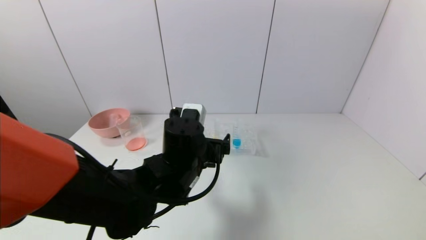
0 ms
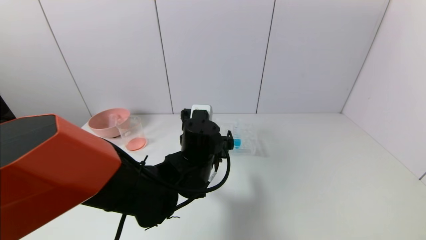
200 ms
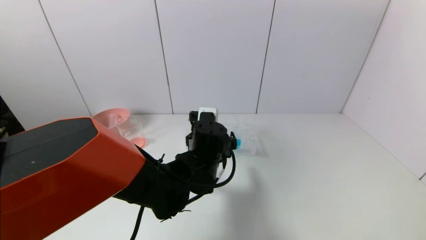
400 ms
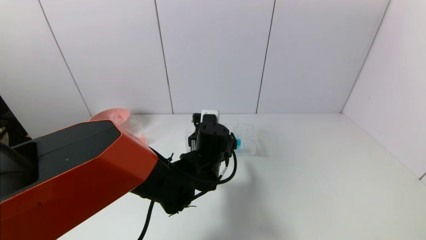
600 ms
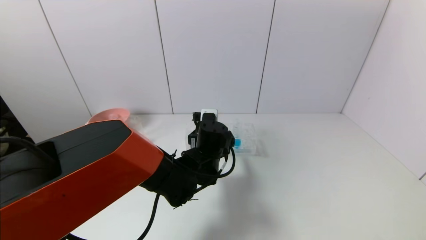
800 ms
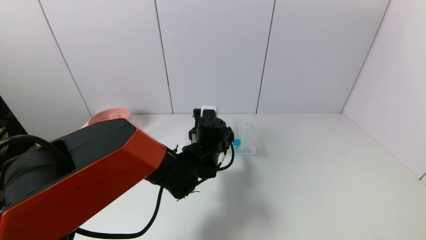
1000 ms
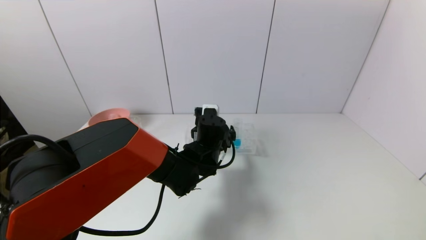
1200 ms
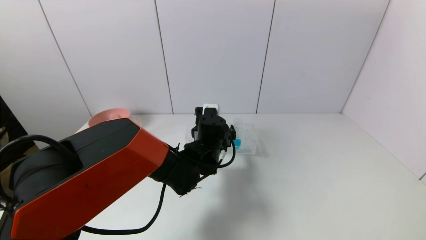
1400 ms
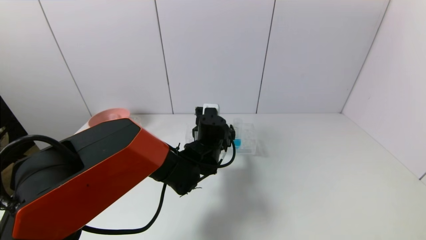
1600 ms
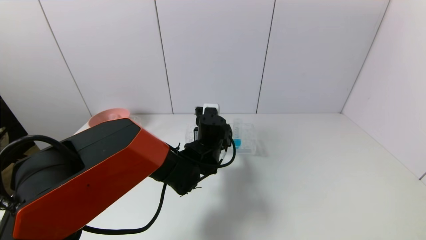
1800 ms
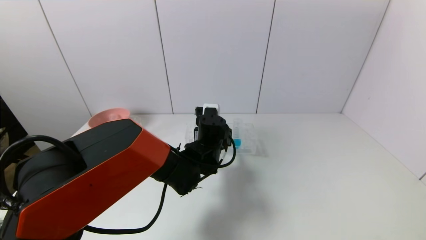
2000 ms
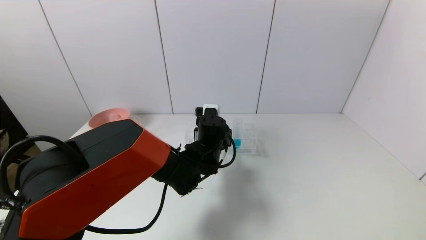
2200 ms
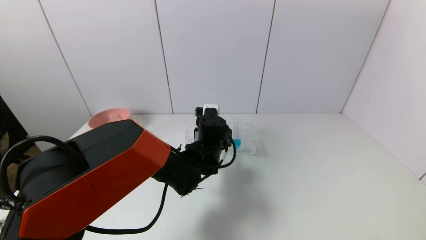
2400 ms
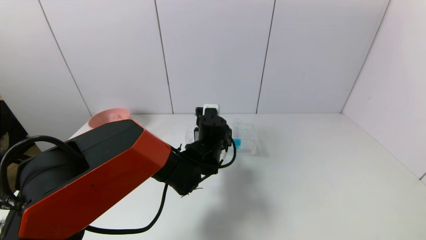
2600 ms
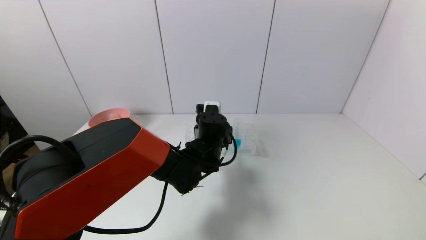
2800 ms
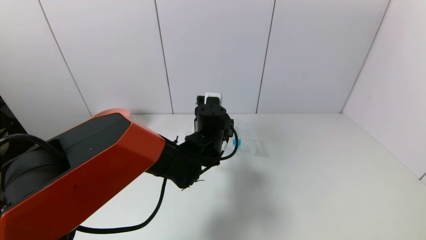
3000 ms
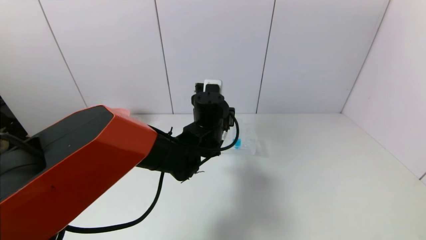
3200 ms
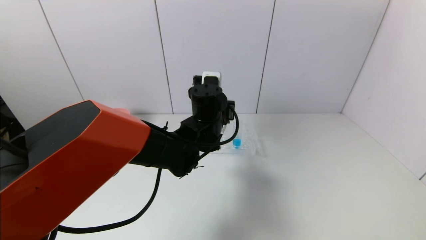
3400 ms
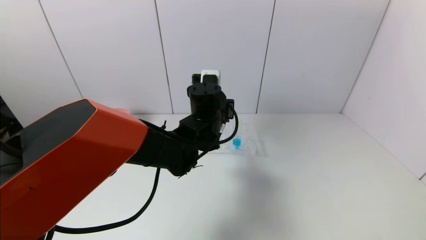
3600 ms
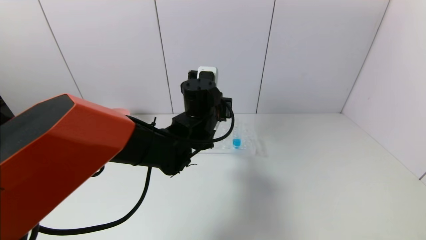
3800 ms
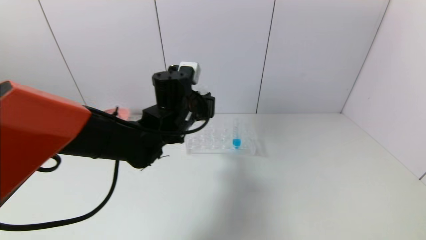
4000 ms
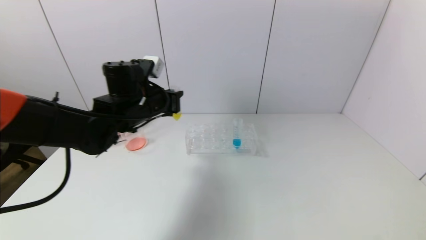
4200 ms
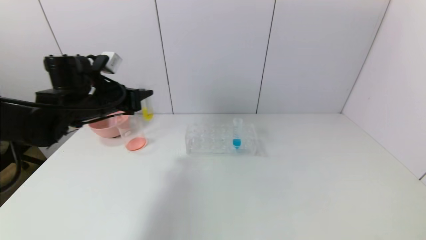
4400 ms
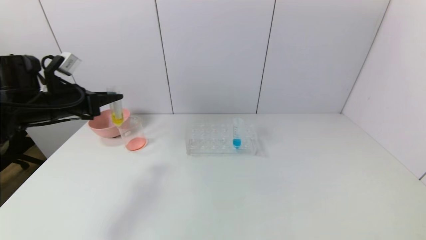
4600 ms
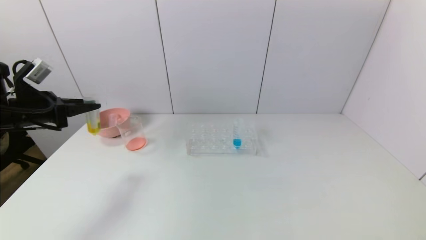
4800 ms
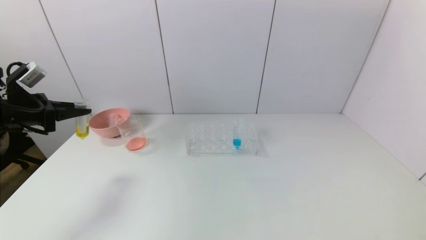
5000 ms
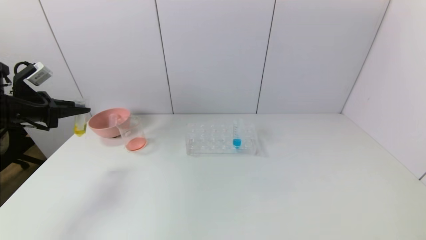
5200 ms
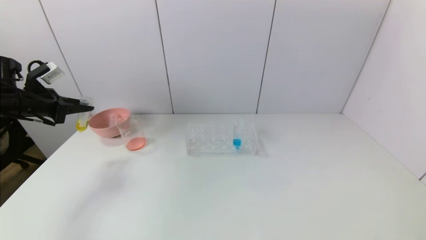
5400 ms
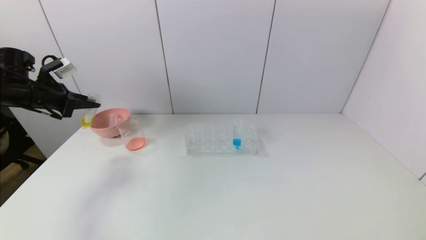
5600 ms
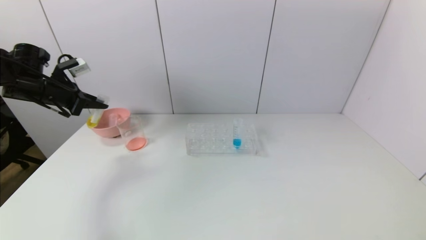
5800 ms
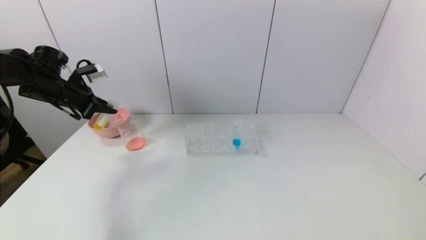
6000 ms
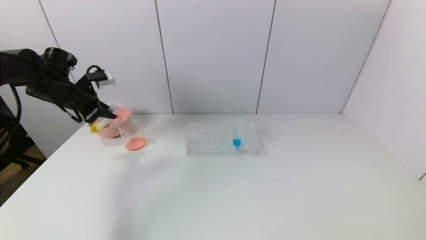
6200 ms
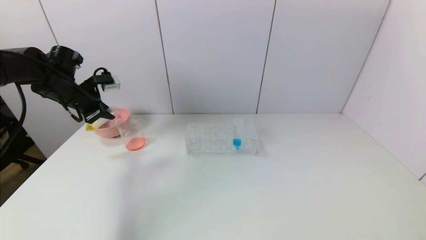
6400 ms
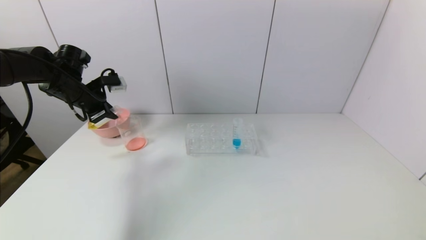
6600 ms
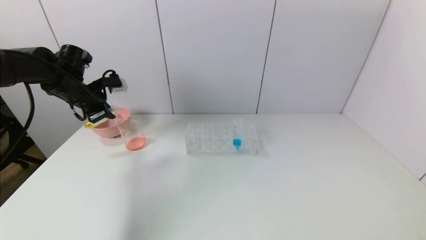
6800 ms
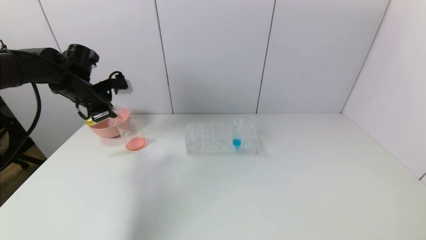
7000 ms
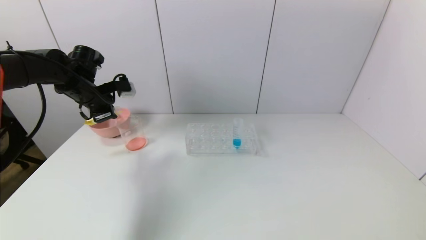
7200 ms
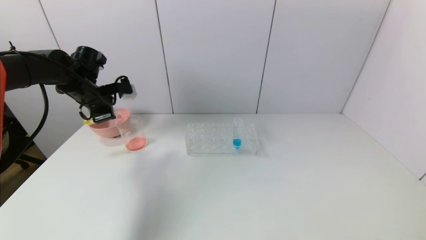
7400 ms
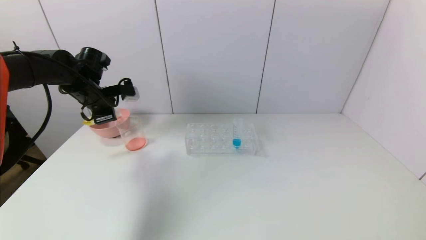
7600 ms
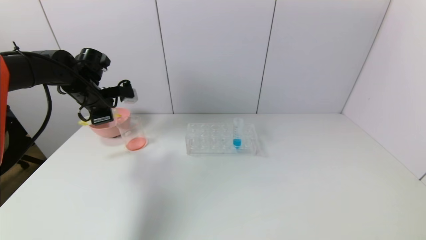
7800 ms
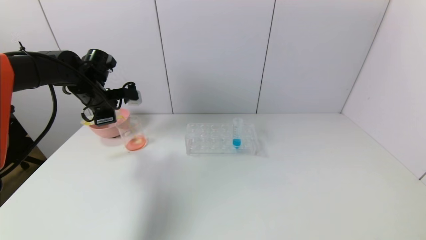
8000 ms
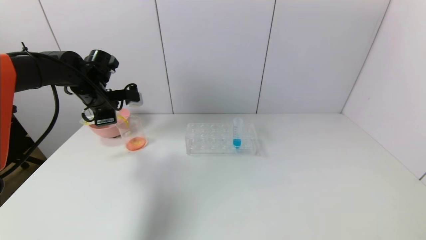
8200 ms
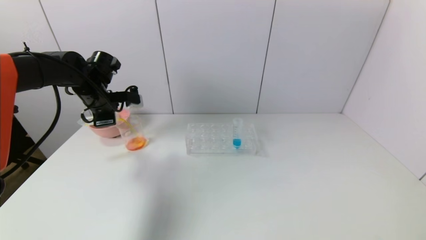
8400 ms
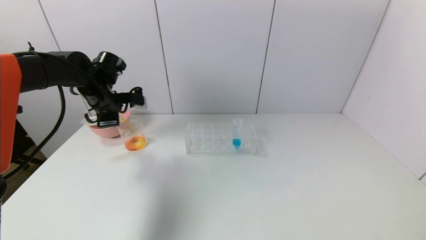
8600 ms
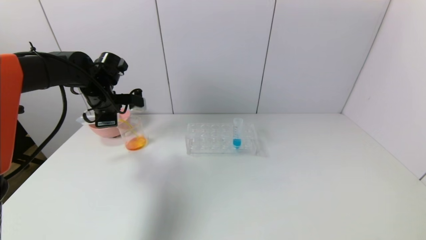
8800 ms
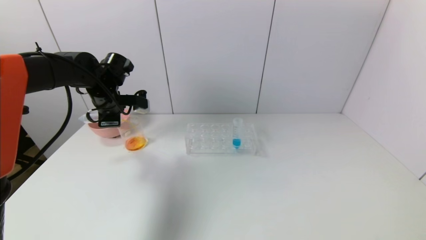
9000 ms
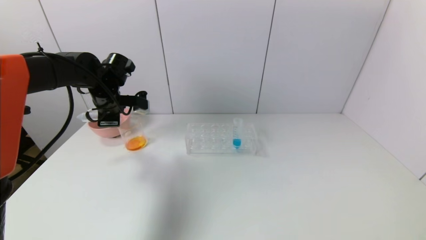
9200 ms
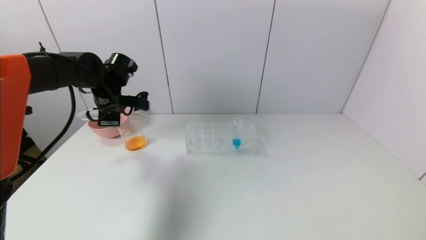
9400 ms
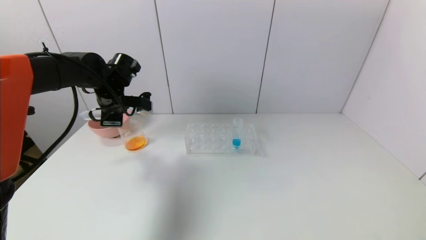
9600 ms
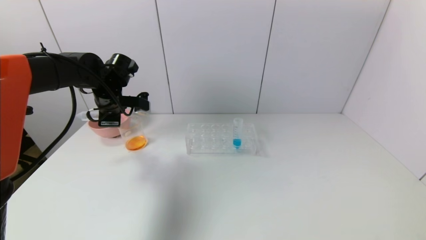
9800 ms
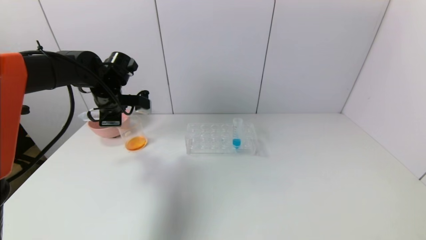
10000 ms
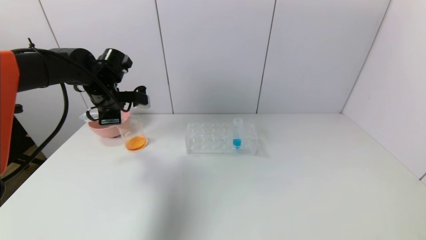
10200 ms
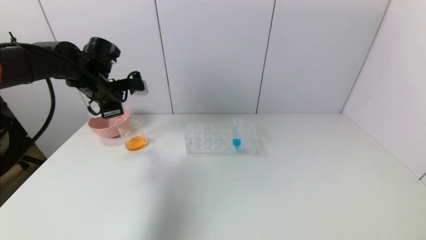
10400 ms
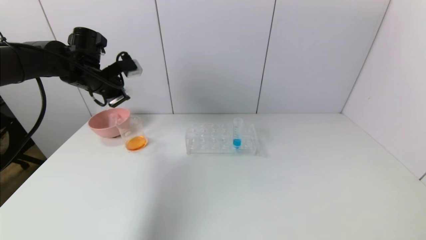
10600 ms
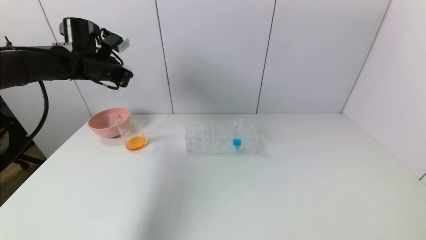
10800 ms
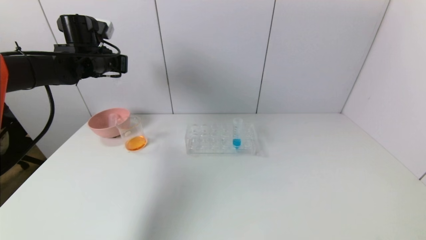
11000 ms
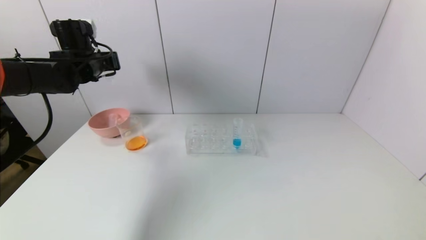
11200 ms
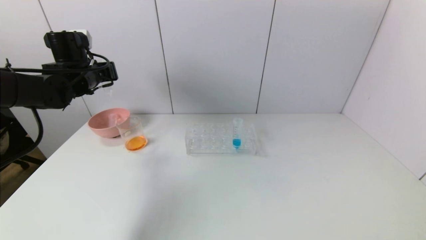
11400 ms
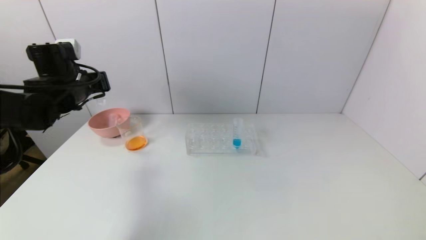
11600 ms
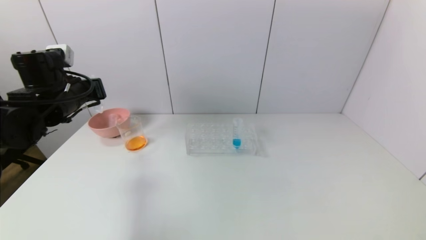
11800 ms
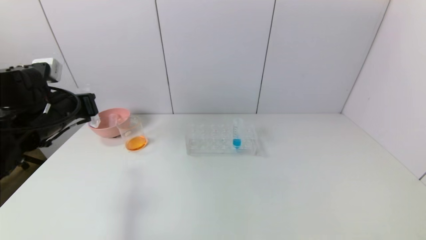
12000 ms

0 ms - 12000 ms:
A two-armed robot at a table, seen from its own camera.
Task of the whole recording: pick up the test tube with yellow pigment and the test tube with red pigment by grippers and pour them into the beaker.
Step, 0 ms - 2400 ms: Grasp the yellow reagent with the left gripper.
Step, 2600 ms - 10000 ms: Pour the yellow reagent into the graduated cylinder with the left gripper.
0 ms - 1600 ms: The left gripper heads forward, covering some 10 cm.
1600 ms - 3000 ms: The left gripper closes.
3000 ms - 4400 ms: The left gripper is displaced to the left by about 25 cm.
4400 ms - 6000 ms: The left gripper travels to the left and forward by about 15 cm.
6000 ms - 7600 ms: The left gripper is displaced to the right by approximately 5 cm.
7600 ms - 9000 ms: The grippers move only a little.
10400 ms - 12000 ms: The left gripper heads backward, covering some 15 cm.

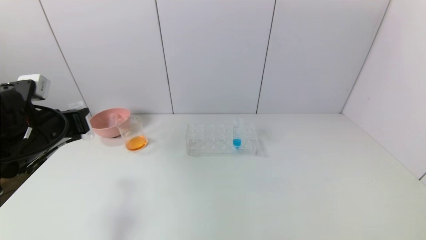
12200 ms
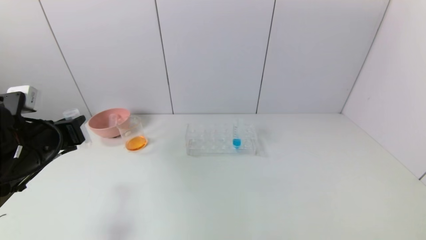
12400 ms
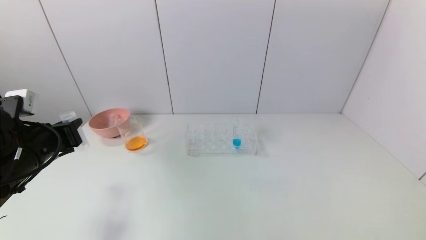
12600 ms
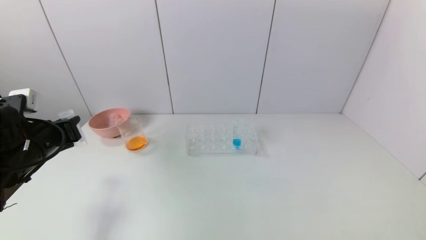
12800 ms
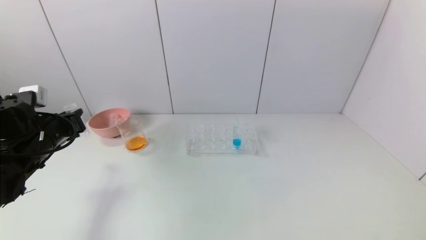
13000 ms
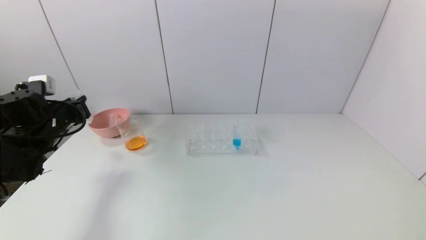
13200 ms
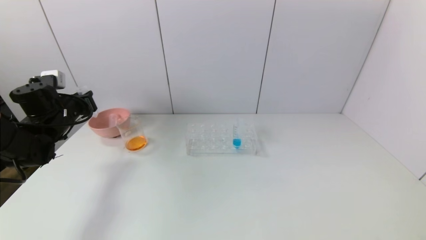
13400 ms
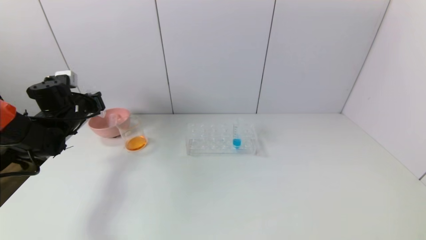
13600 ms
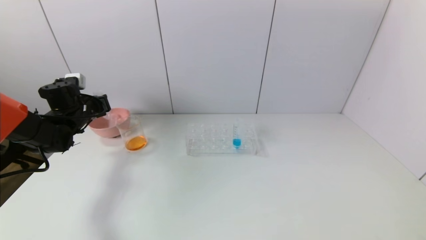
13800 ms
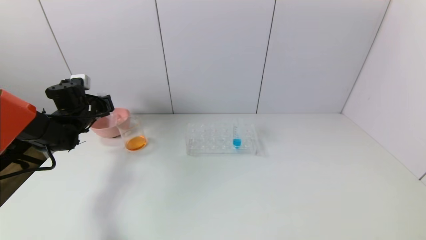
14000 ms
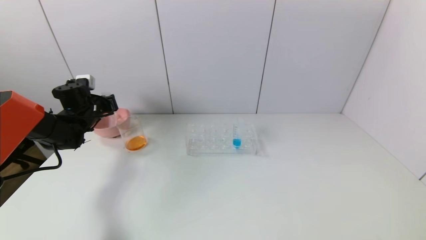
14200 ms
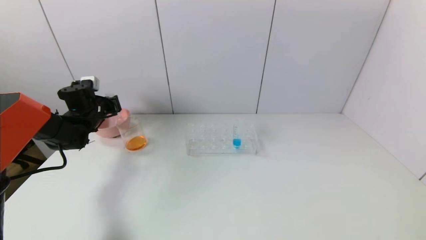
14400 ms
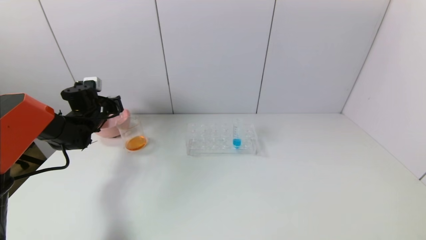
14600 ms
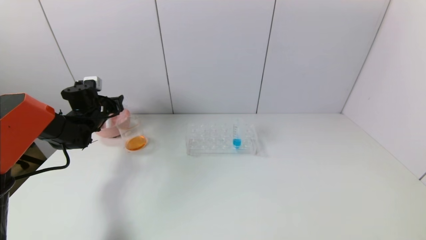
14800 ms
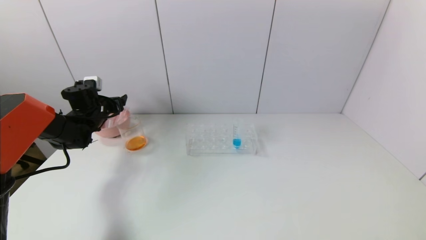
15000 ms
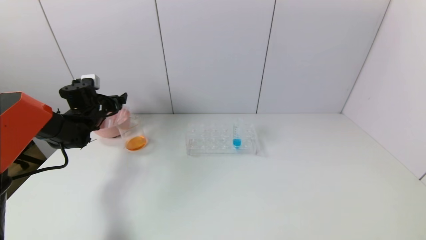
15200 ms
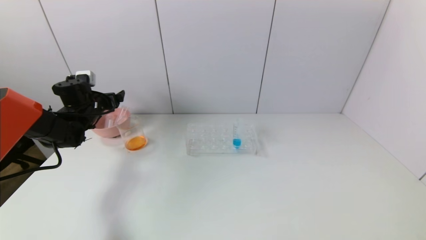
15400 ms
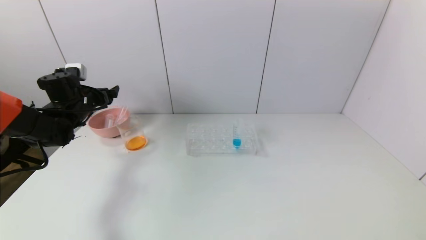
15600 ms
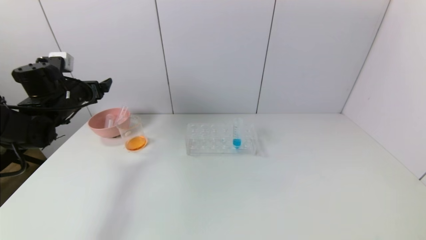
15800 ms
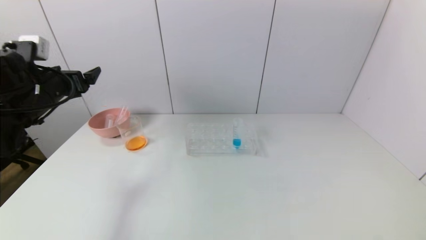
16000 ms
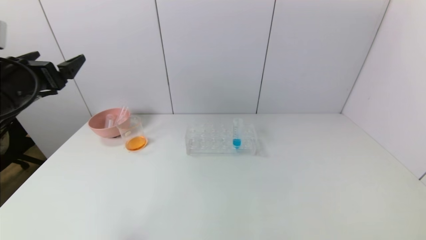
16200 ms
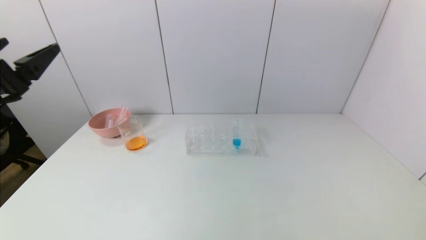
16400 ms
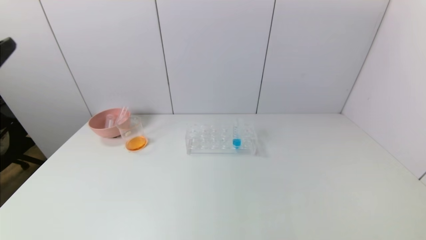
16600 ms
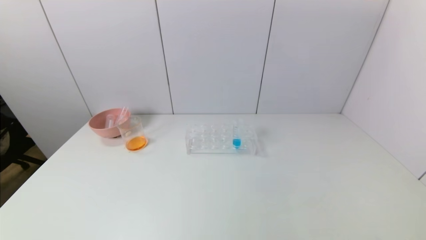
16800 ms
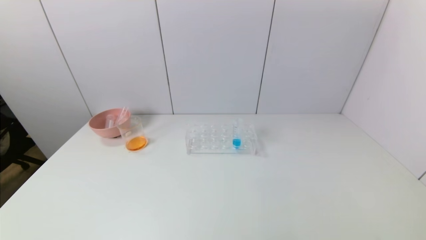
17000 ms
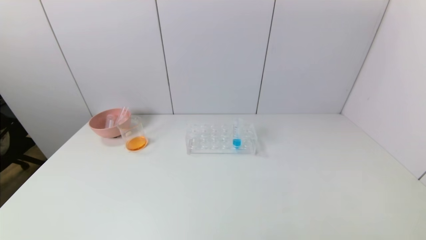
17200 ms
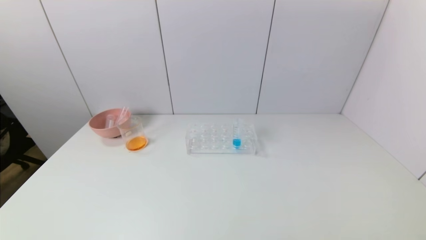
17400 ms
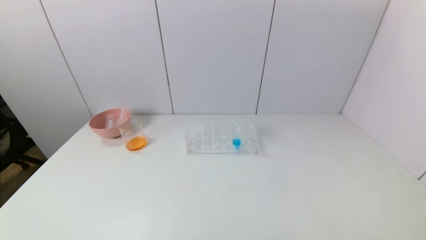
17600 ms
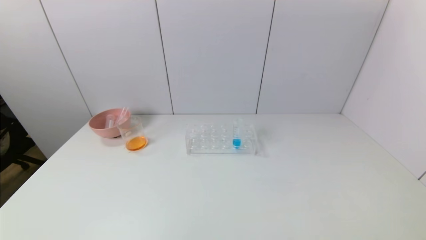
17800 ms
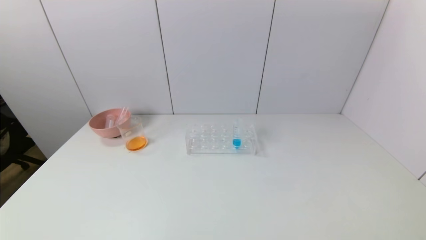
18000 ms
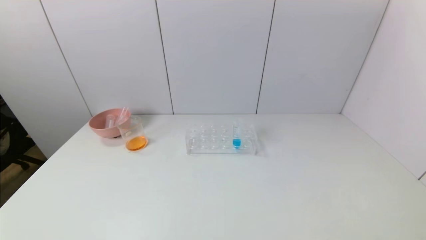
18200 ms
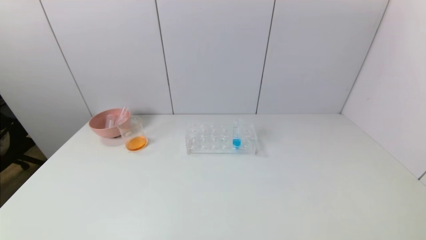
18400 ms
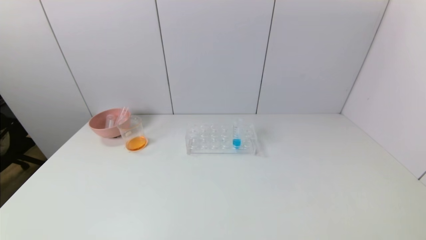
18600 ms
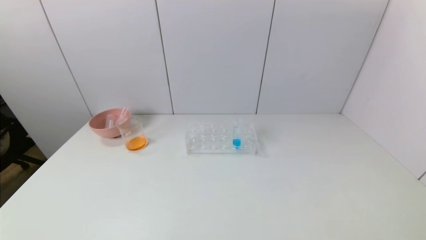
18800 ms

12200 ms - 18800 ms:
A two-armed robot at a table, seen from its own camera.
Task of the whole recording: pick up the test tube with yellow pigment and the test tube with red pigment by grippers and pour them into the beaker.
Step, 12200 ms - 15000 ms: Place the test tube into the pink bowl with the left gripper.
12200 ms - 13800 ms: The left gripper shifts approximately 20 cm forward.
13800 ms - 15400 ms: The left gripper opens up.
15400 ms - 17200 ms: The left gripper is displaced backward by some 50 cm.
